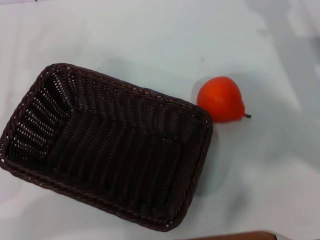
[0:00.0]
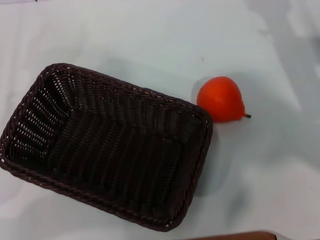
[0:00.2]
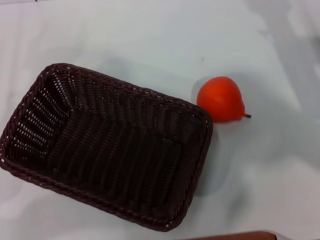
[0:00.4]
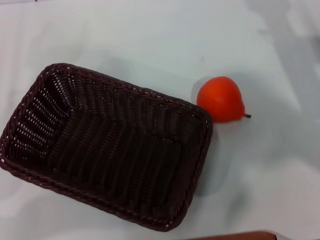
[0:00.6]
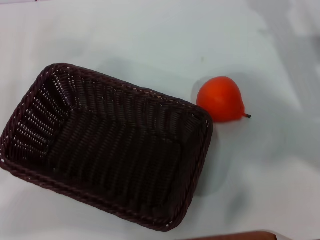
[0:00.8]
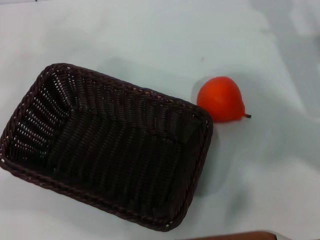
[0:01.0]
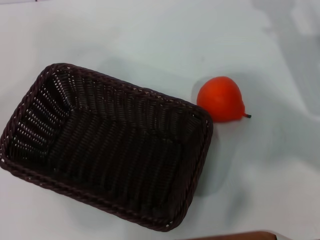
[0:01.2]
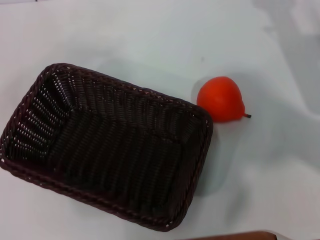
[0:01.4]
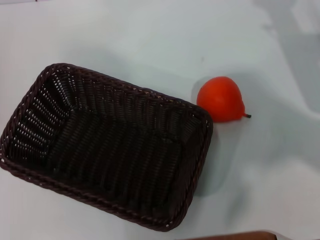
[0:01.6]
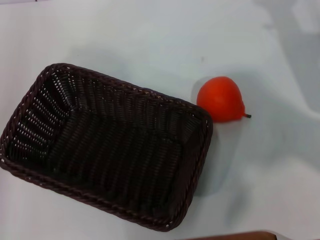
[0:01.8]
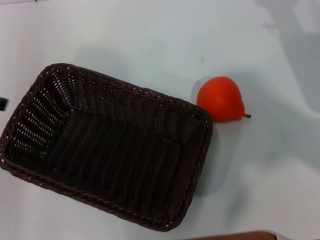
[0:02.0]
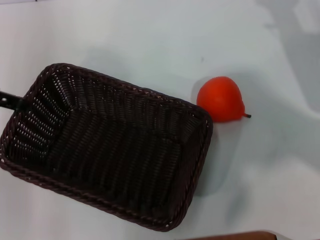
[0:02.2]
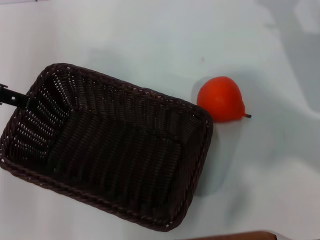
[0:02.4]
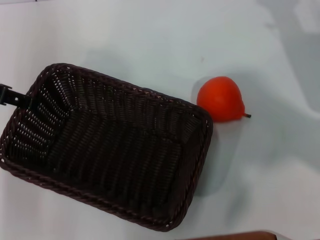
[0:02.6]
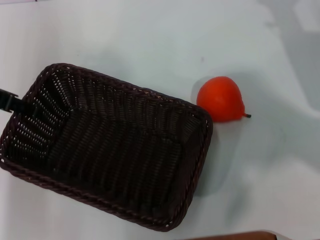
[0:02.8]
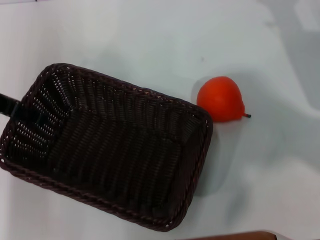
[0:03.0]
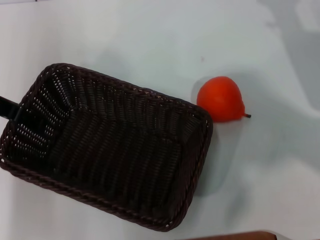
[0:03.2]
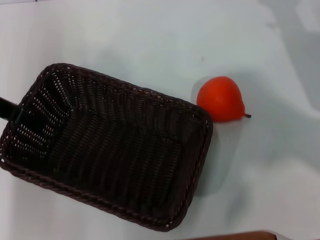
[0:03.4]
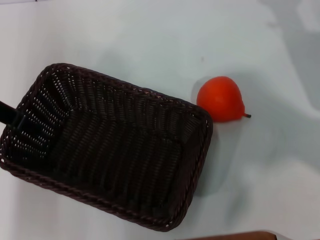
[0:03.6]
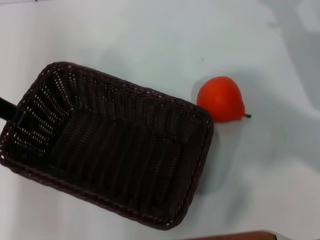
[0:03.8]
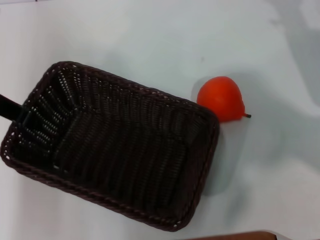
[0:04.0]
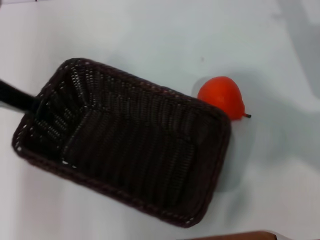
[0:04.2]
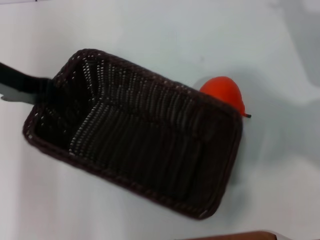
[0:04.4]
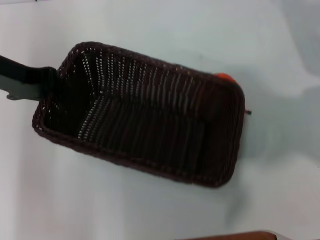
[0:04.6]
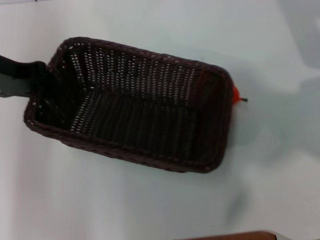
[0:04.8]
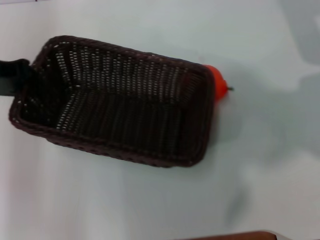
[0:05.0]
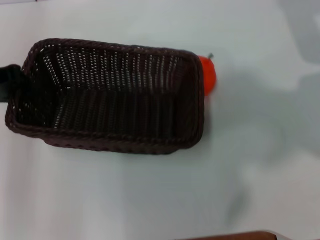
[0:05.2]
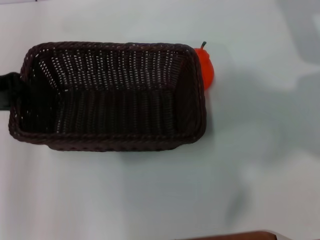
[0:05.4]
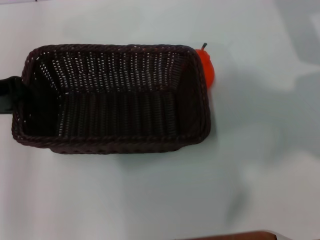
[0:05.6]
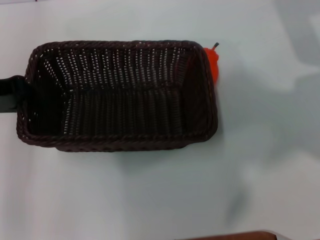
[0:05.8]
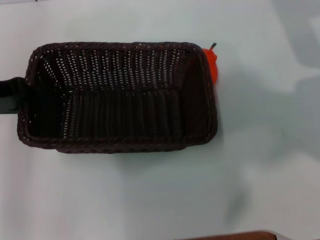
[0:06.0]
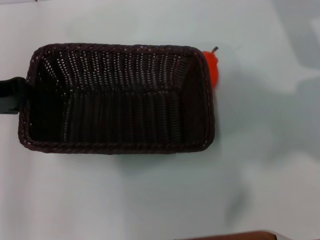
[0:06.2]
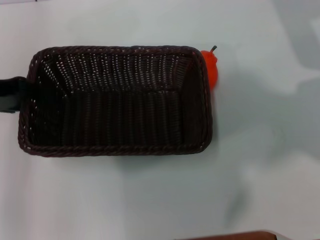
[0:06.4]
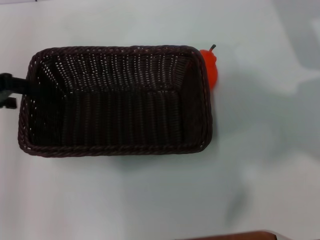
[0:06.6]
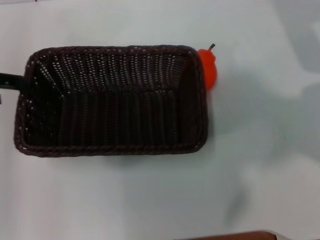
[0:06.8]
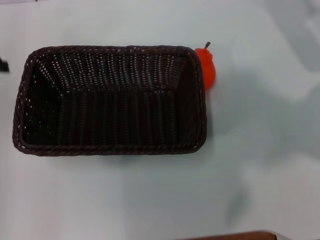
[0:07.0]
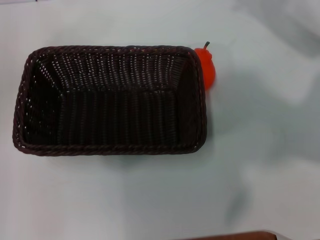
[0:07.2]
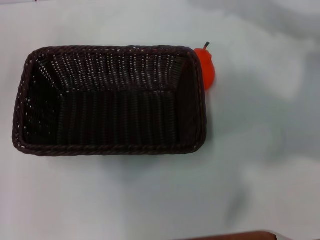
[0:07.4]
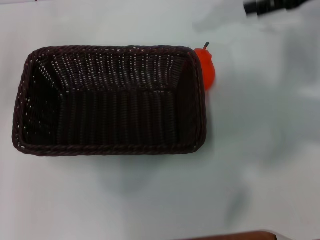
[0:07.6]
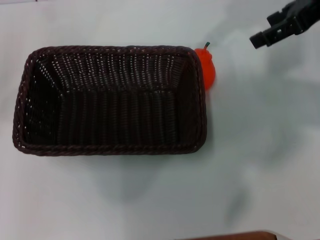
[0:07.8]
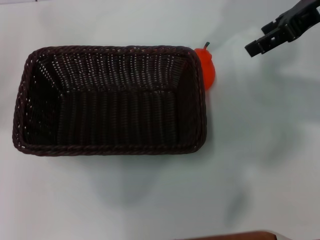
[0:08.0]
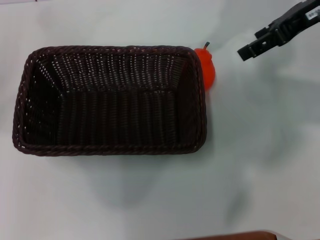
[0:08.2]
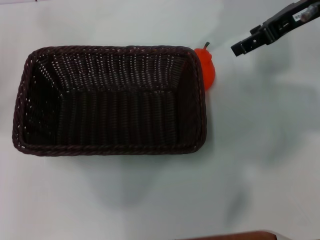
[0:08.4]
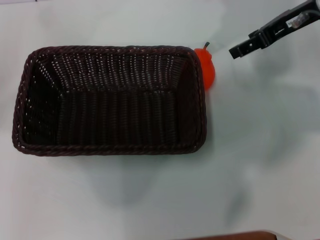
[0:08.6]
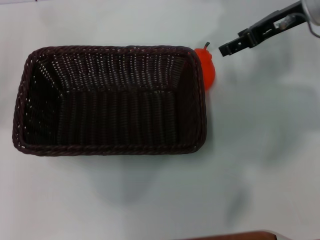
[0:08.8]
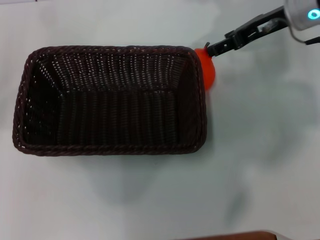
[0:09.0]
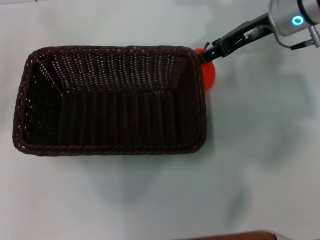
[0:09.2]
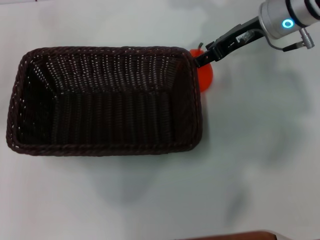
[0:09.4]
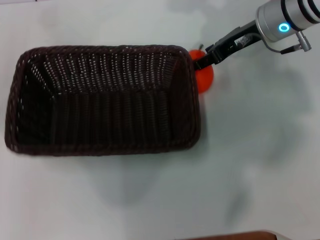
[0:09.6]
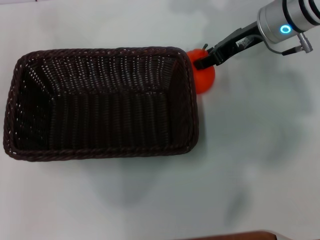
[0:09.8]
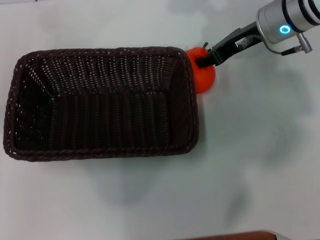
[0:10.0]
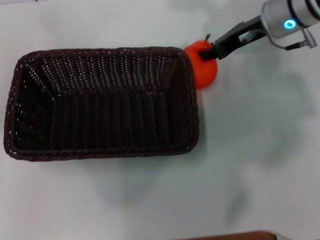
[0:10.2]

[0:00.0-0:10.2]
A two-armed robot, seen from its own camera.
Task of the whole recording: the left gripper pick up the black basket and place it horizontally in the middle of the table, the right gripper pick up the orange and place it into the black basket.
Step, 0:00.0 to 0:03.8: Pick up the dark basket with the left gripper.
Step, 0:04.0 to 0:06.4: Place the dark basket in the center of view with the left gripper.
Step, 0:06.6 to 0:10.2: Pick up the orange with the right gripper.
0:01.4 to 0:03.0: The left gripper heads to the right and forward, covering approximately 15 cm.
0:03.0 to 0:04.4: The left gripper closes up.
0:04.4 to 0:05.8: The left gripper shifts by about 5 cm.
0:05.8 to 0:07.2: The left gripper shifts about 5 cm to the left, and opens.
0:07.2 to 0:08.8: The right gripper moves to the left, approximately 5 cm, and moves roughly 10 cm upward and comes back.
0:08.8 to 0:10.2: The right gripper closes its fingers.

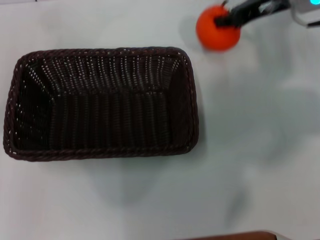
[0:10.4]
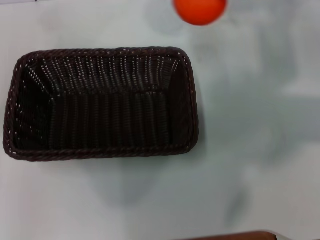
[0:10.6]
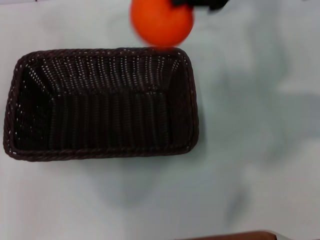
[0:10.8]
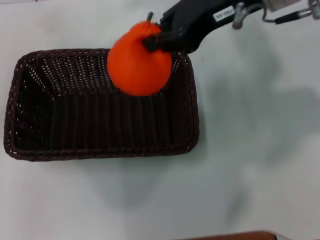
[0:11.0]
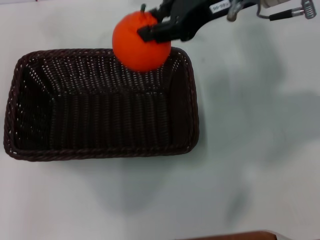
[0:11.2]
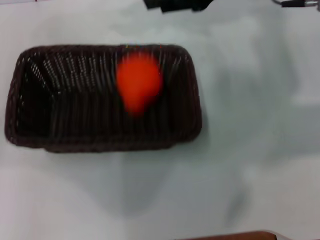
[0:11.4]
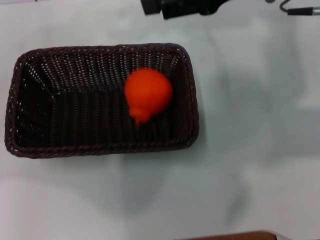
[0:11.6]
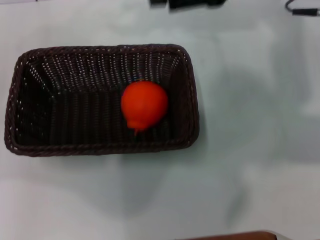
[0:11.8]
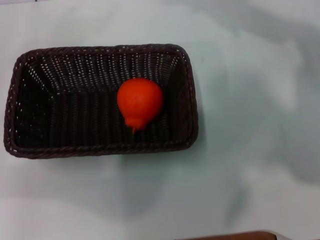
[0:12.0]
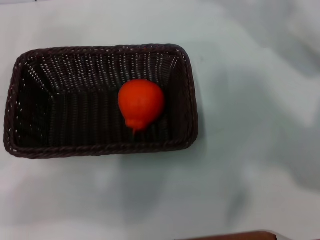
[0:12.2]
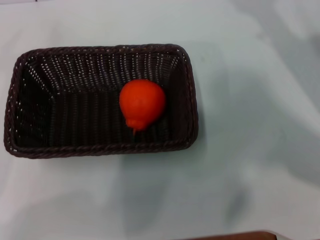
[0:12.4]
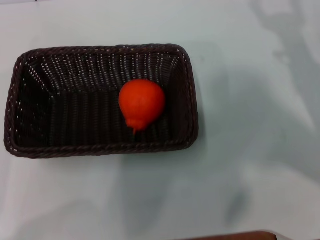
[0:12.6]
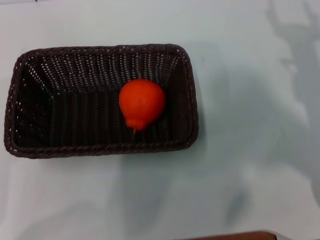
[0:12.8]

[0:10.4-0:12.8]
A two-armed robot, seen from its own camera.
Task of the whole recording: the left gripper pick up the black basket and place it horizontally in the middle of the table, the right gripper pick up the orange and place it into the black basket.
Step, 0:10.4 to 0:11.4: Place the orange into the dark basket with the right gripper.
0:10.4 to 0:11.6: The right gripper heads backward and upward, covering roughly 10 cm, and opens up.
0:11.6 to 0:12.8: The left gripper shifts some 15 cm downward and backward. Meanwhile the right gripper goes about 25 cm downward, to the right and backward, and opens.

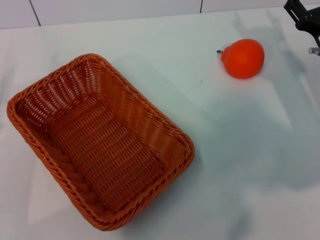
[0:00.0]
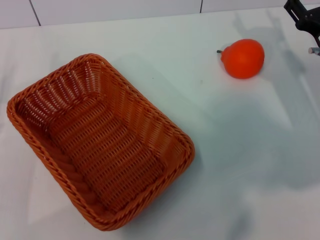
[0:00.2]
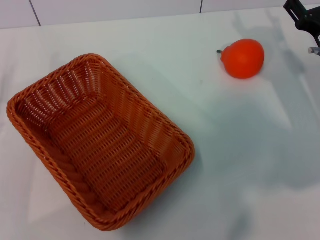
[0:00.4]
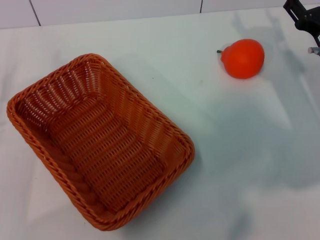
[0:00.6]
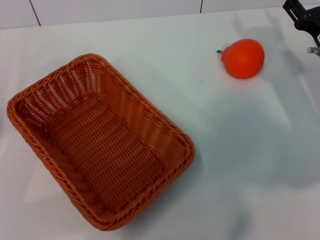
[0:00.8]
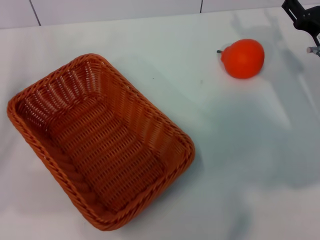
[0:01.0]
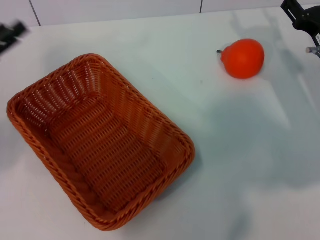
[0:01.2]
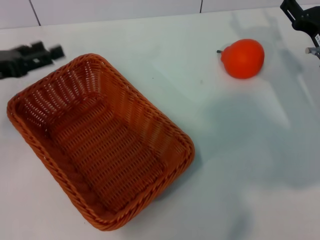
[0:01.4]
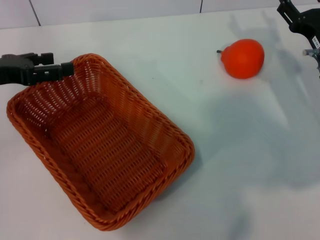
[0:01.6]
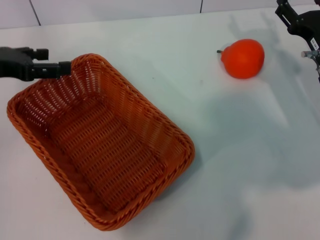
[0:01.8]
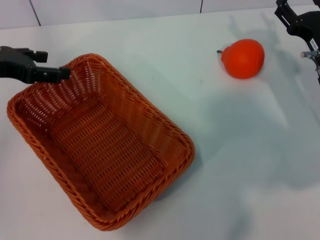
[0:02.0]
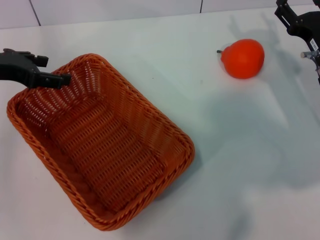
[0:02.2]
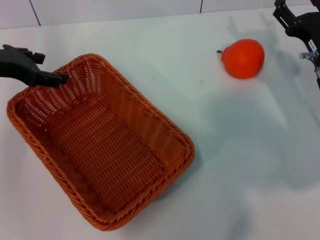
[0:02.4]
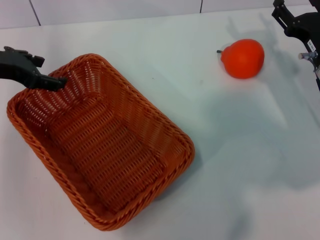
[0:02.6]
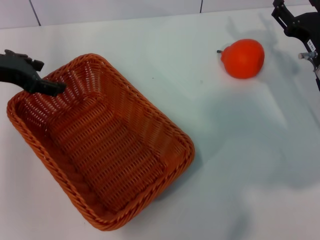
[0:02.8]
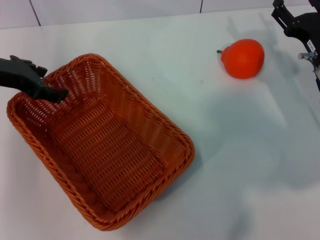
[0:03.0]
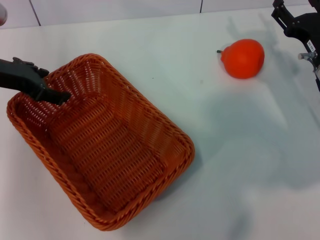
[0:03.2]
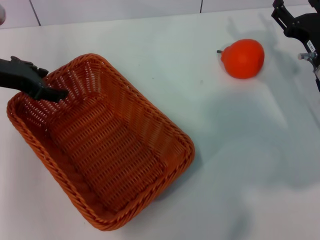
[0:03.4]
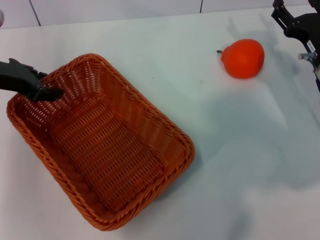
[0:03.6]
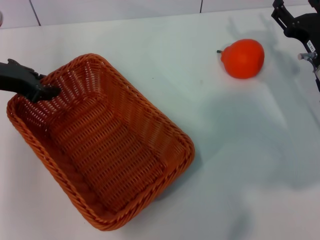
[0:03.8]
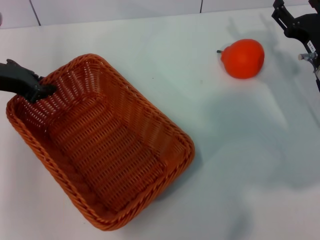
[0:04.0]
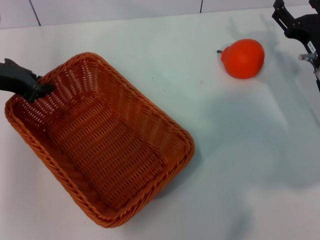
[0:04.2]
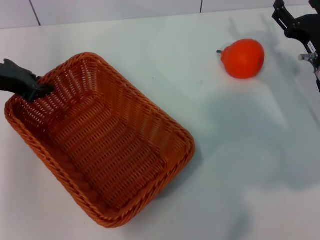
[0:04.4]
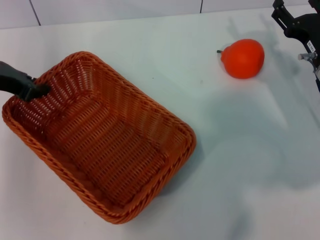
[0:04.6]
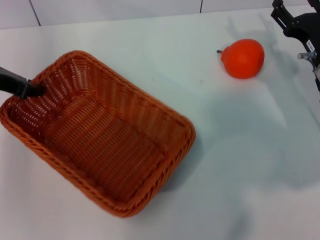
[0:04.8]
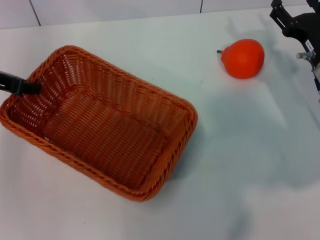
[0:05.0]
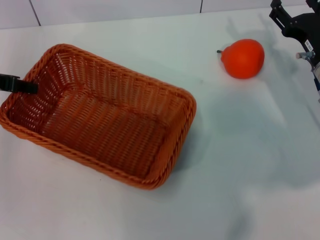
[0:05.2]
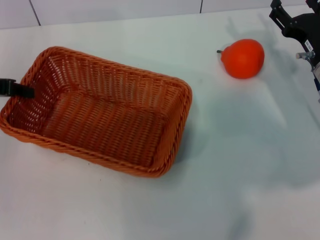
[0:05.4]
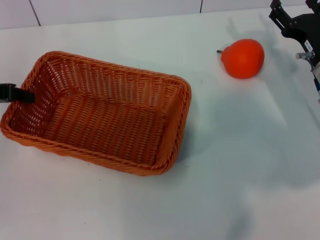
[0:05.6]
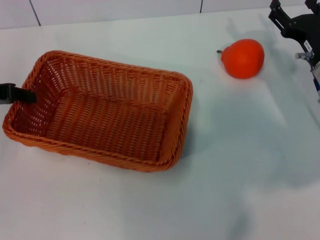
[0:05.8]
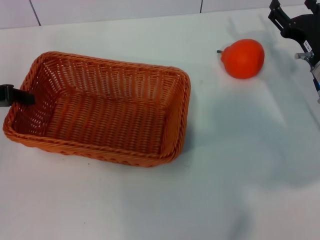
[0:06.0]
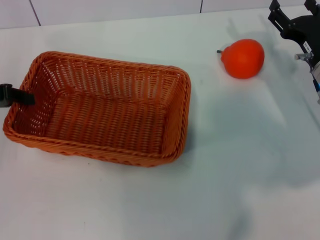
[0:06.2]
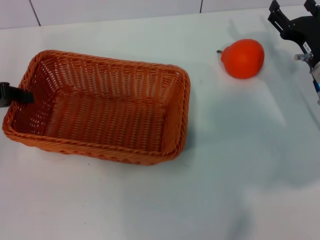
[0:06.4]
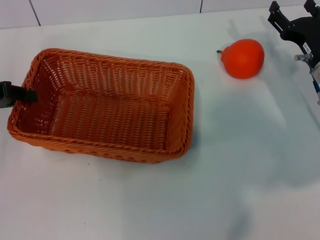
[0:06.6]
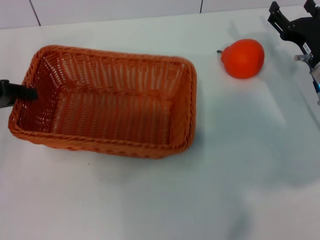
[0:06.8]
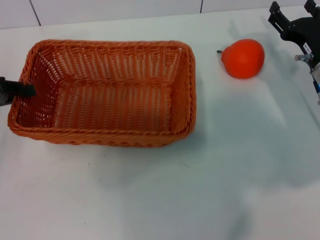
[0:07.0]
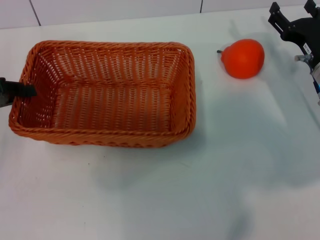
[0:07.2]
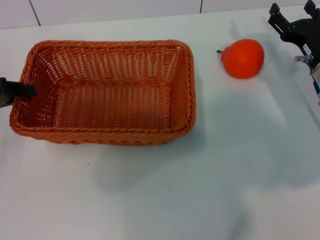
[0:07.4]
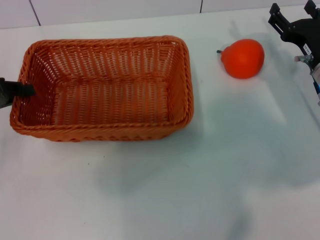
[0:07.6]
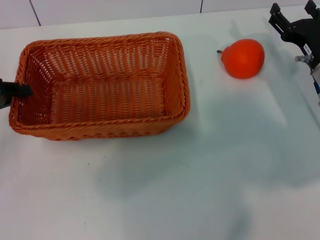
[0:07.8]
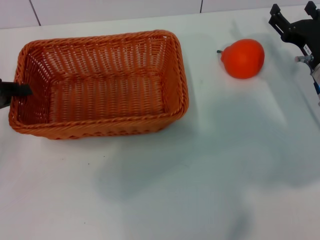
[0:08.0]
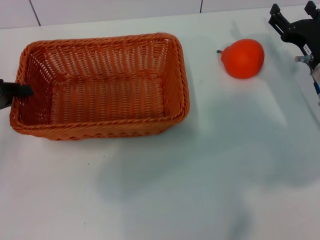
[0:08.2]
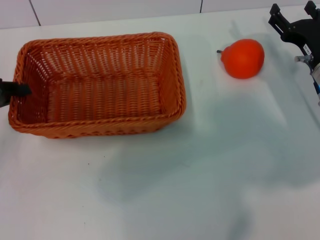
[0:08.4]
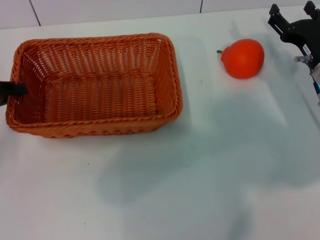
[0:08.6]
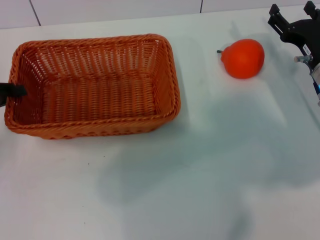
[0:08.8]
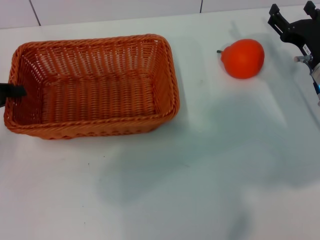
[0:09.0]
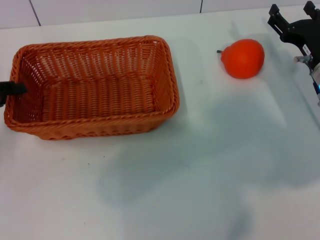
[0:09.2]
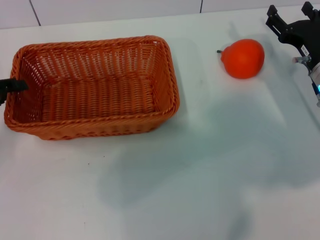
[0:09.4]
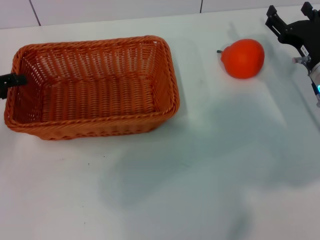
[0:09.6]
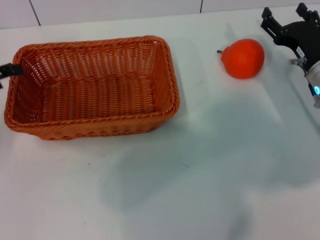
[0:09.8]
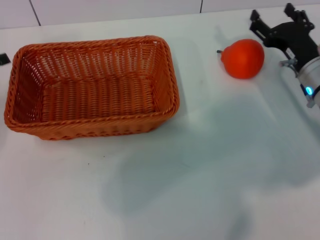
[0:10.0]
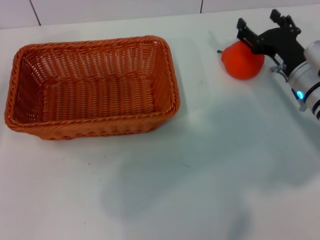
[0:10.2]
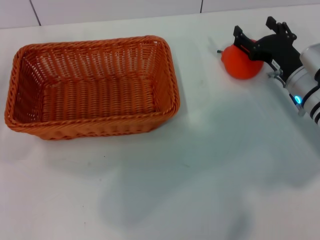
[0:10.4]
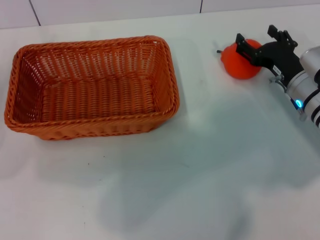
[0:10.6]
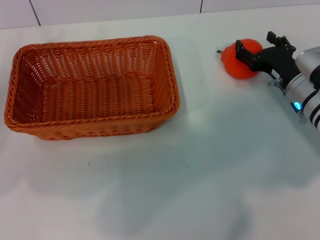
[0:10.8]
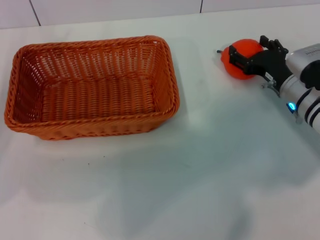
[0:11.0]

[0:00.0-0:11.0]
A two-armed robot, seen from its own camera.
Task of the whole recording: the left gripper pick up the yellow basket and place it horizontally in the middle of the table, the right gripper pick up the orange and place it into the yellow basket.
Step, 0:00.0 to 0:04.8: Pick up the light basket with the left gripper.
Step, 0:05.0 to 0:09.8: Place the light basket in the center of view with the left gripper.
0:00.0 to 0:01.6: The left gripper is displaced forward and upward by about 15 cm.
0:01.6 to 0:03.2: The left gripper changes place by some 5 cm.
0:03.2 to 0:04.8: The left gripper closes up.
0:04.8 to 0:06.2: The left gripper shifts by some 5 cm.
0:07.8 to 0:09.4: There are only small adjustments of the grippers.
